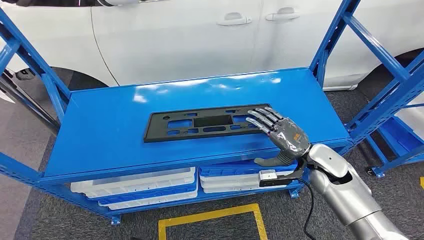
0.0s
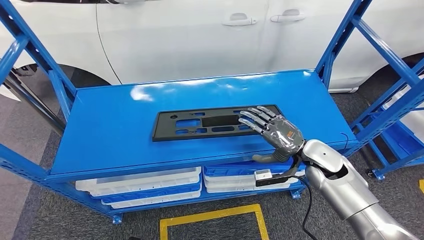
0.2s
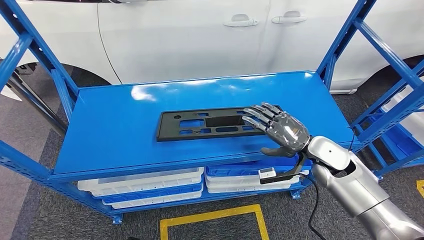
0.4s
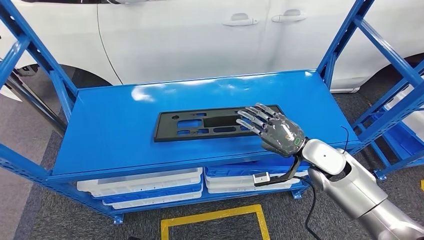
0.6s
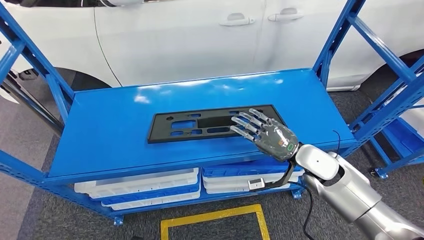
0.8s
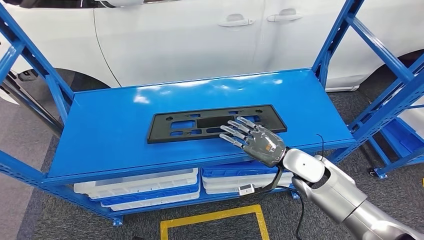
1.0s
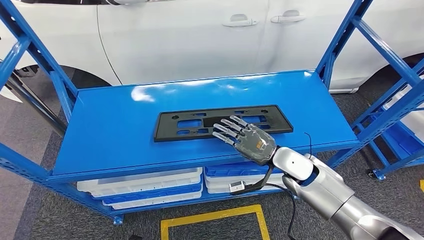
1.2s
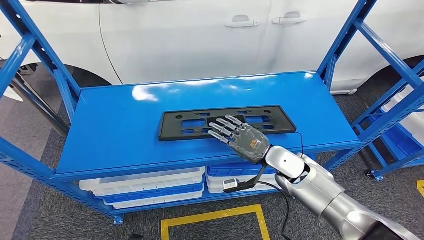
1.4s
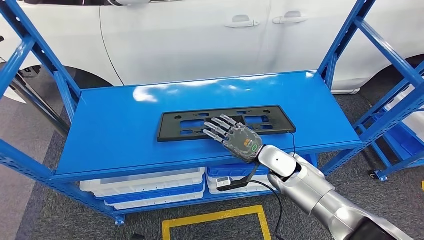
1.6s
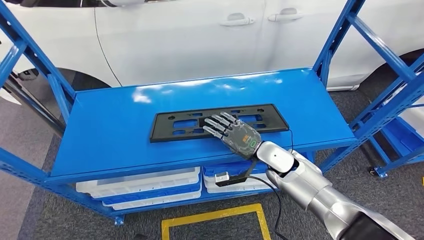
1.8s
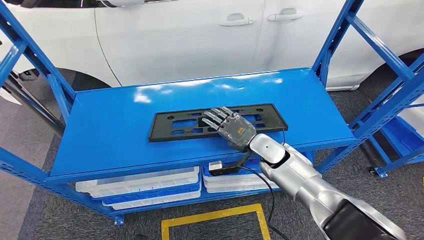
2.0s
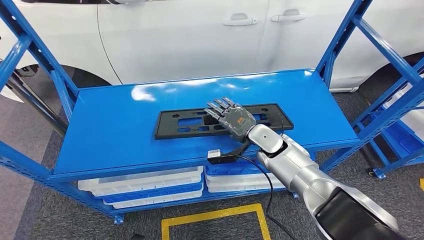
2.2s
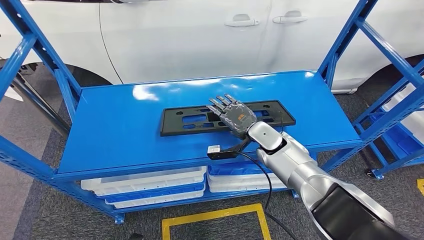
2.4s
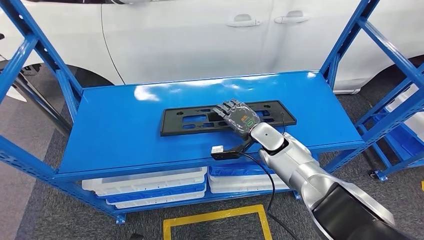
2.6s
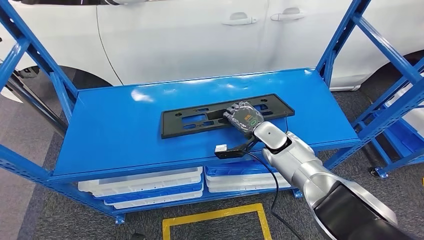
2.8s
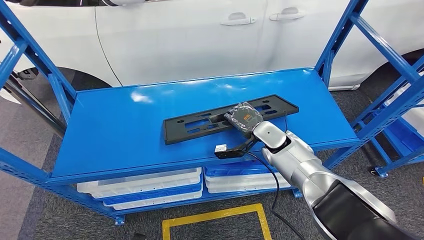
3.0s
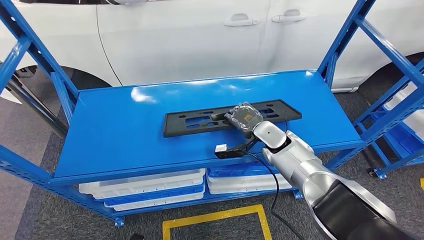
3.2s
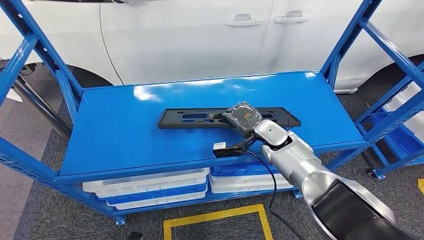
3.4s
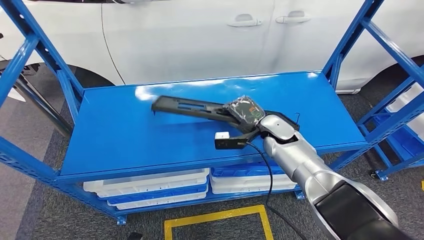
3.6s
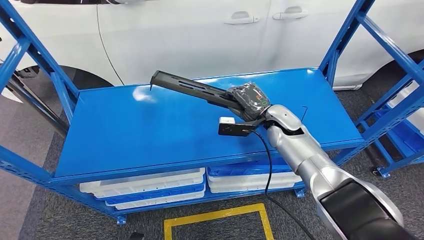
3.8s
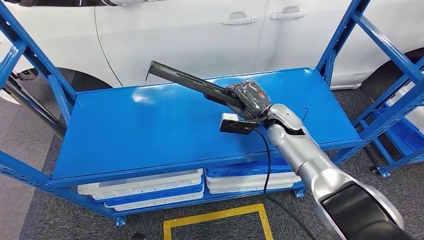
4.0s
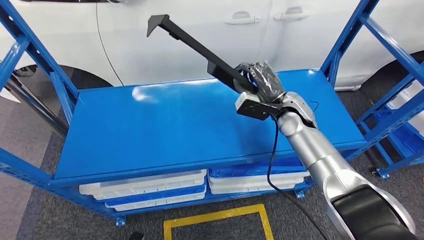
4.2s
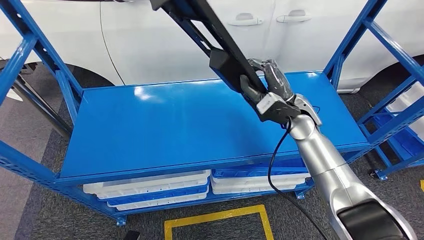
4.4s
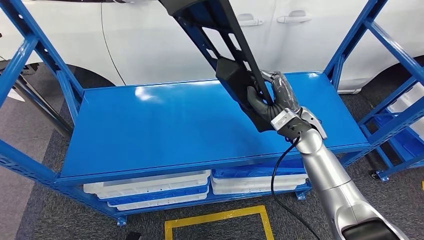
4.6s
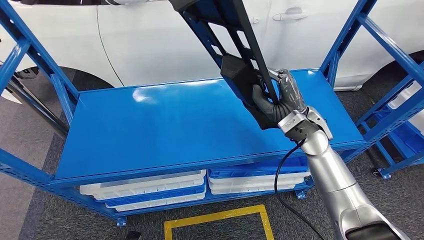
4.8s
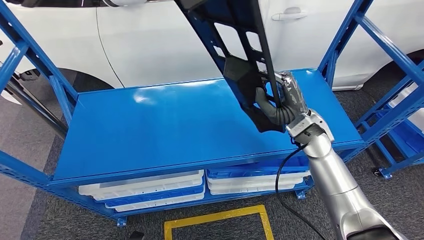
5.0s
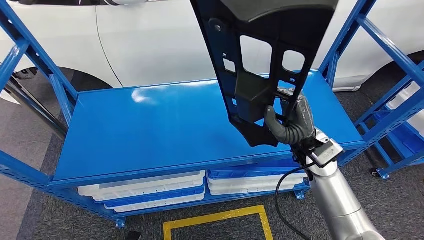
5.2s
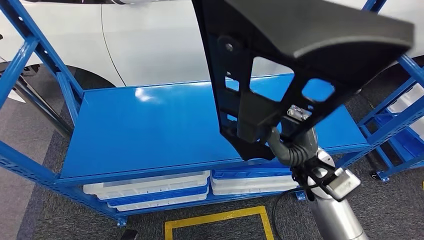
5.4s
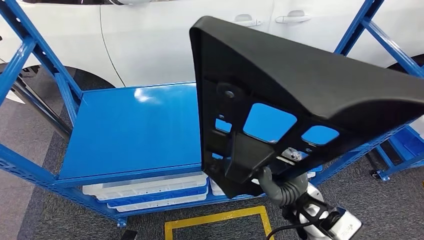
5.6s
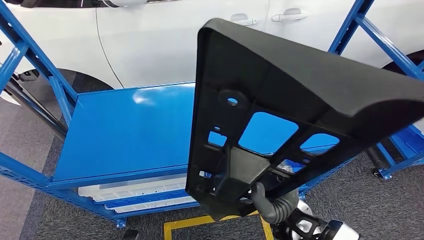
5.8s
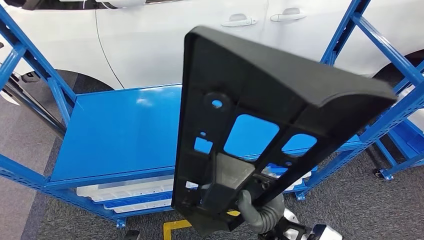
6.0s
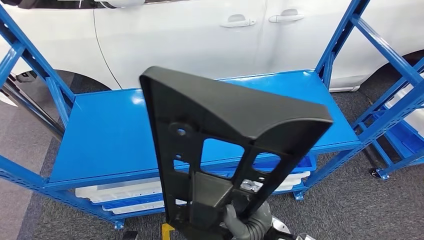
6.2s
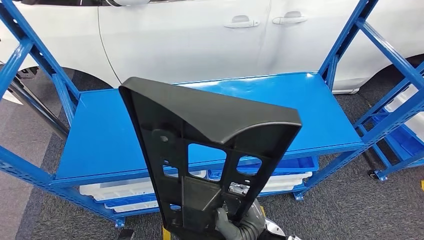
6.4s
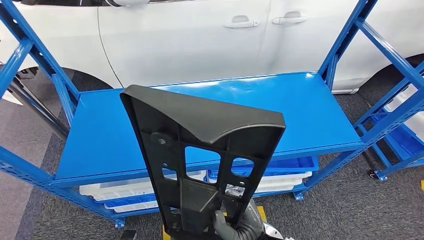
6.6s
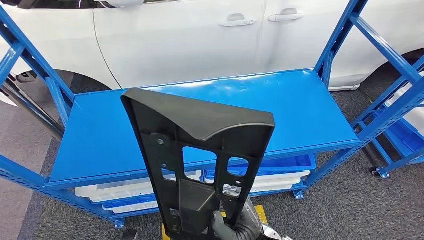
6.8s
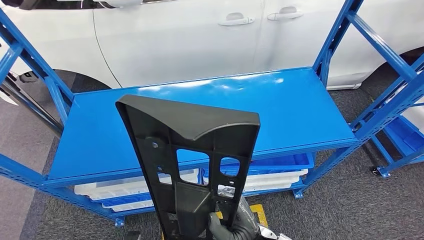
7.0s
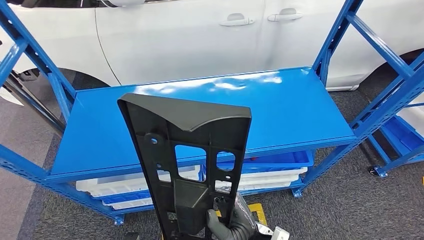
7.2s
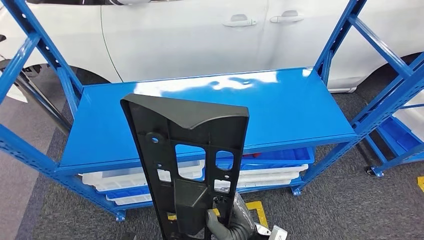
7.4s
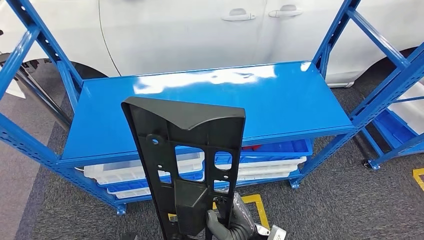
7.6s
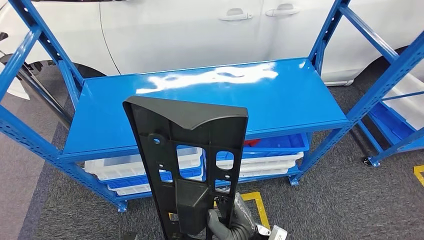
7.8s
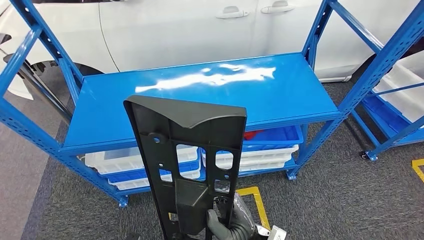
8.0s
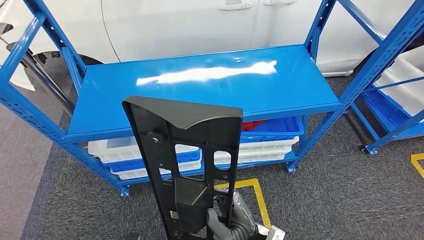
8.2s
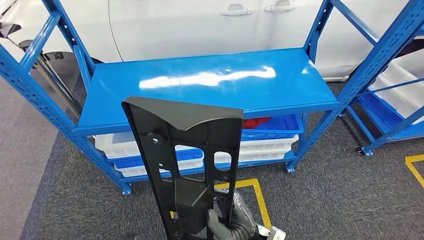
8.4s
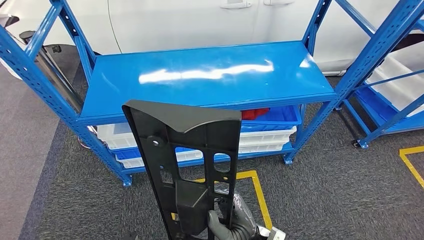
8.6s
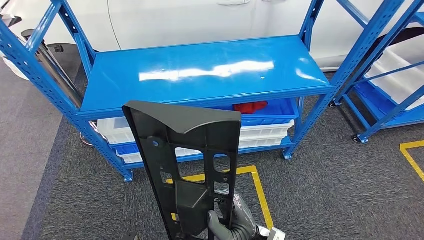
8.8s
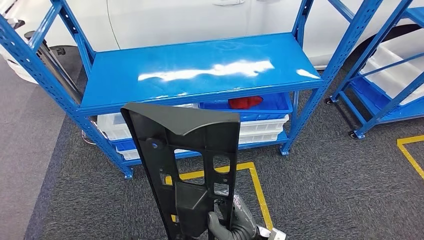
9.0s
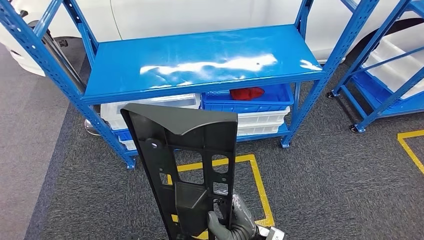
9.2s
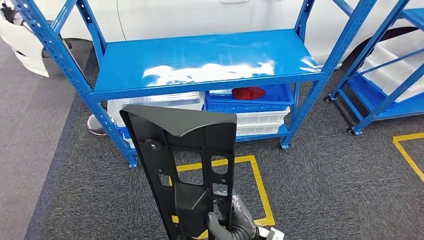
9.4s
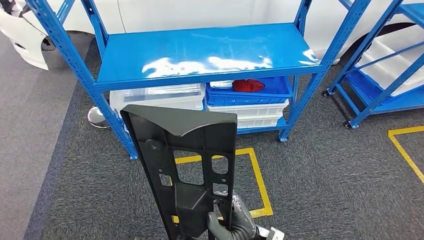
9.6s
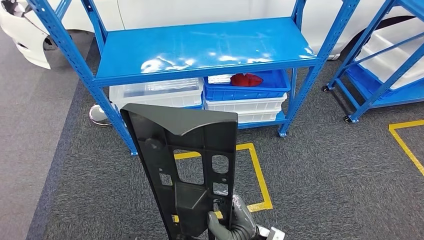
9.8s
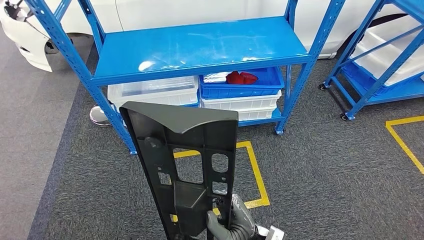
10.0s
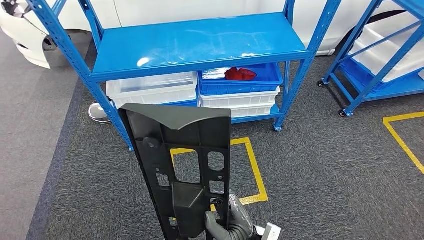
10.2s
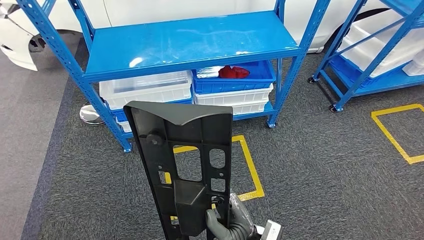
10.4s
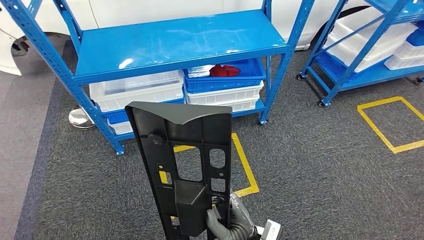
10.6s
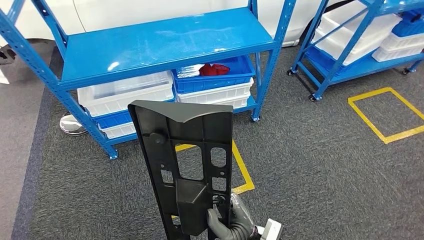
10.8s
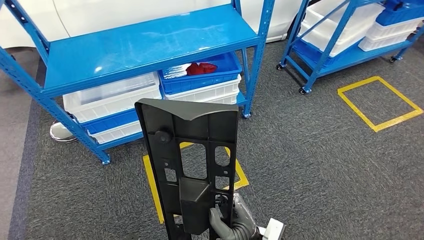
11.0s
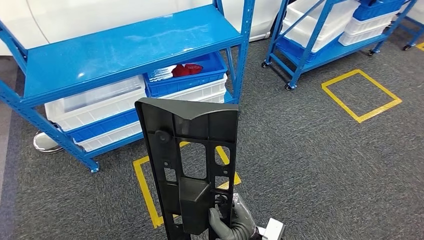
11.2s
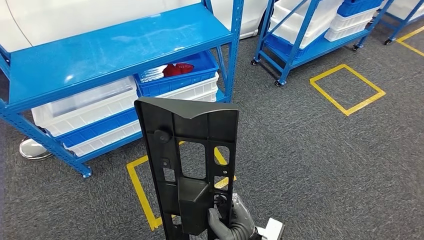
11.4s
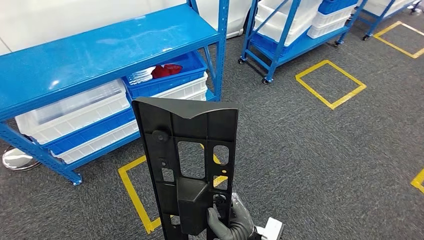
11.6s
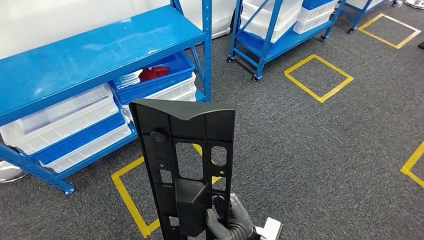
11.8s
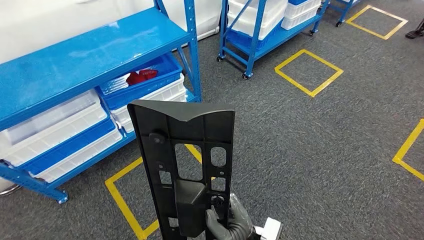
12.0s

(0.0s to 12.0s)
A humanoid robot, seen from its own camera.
Step, 0.0s - 4.2s: Pick up the large parts from the shelf.

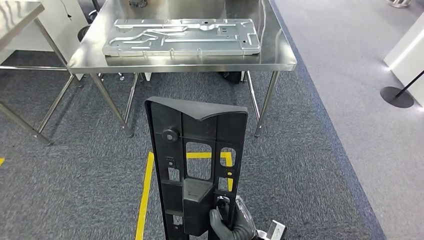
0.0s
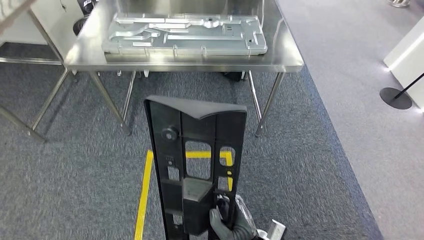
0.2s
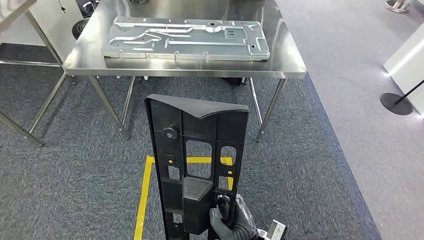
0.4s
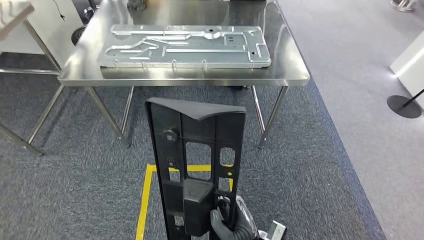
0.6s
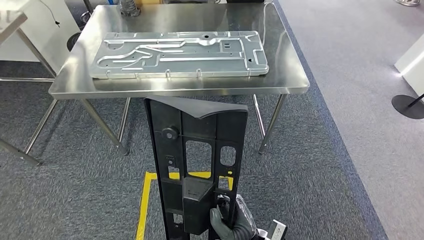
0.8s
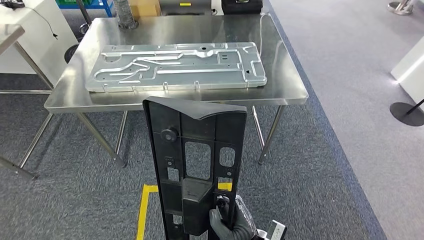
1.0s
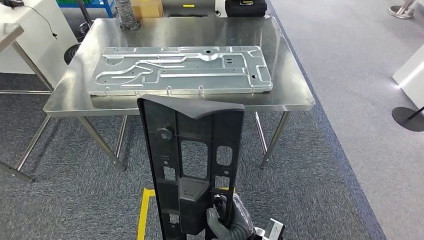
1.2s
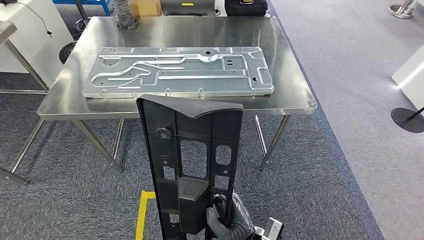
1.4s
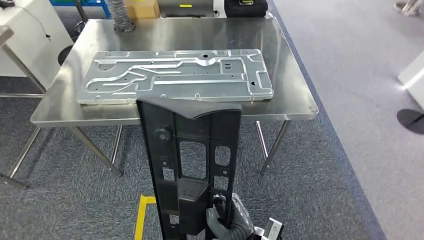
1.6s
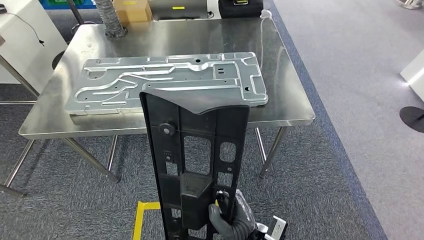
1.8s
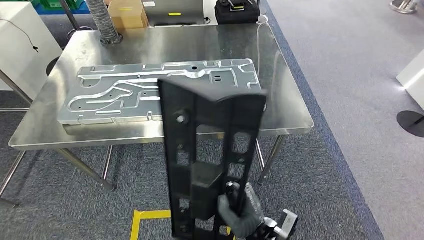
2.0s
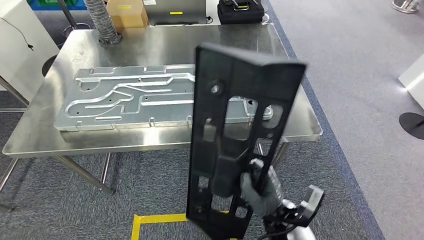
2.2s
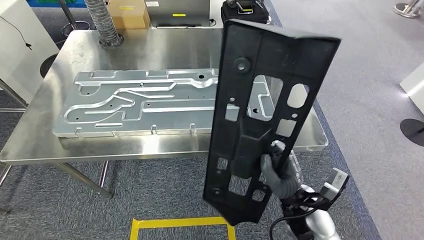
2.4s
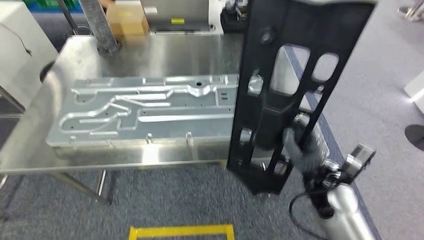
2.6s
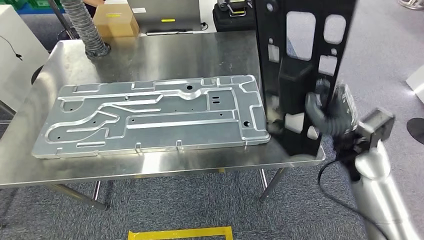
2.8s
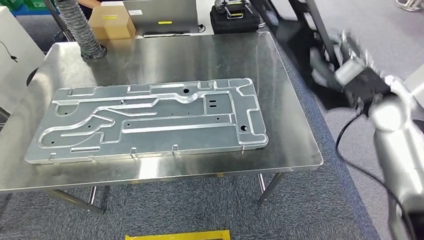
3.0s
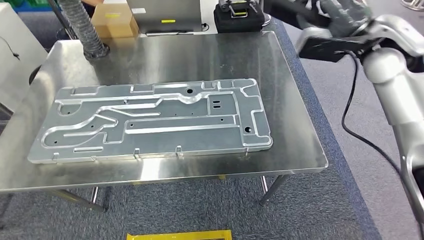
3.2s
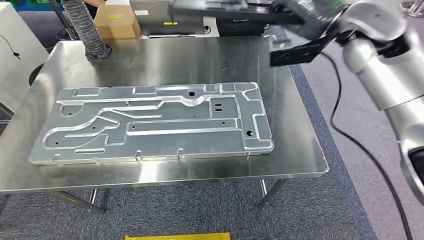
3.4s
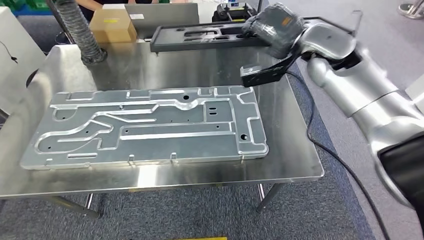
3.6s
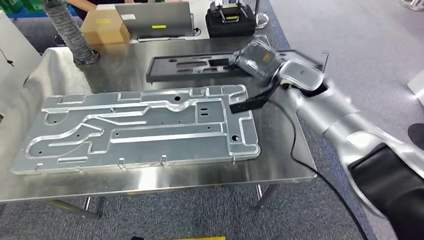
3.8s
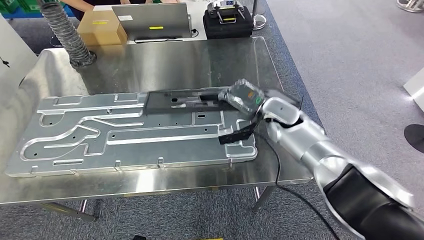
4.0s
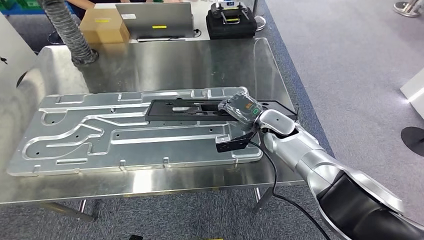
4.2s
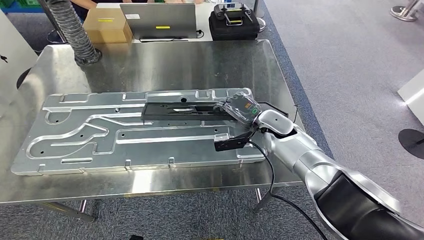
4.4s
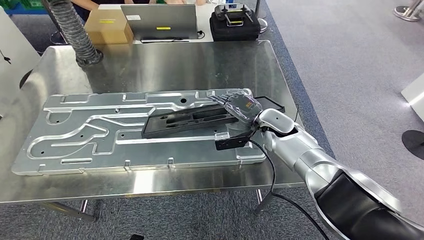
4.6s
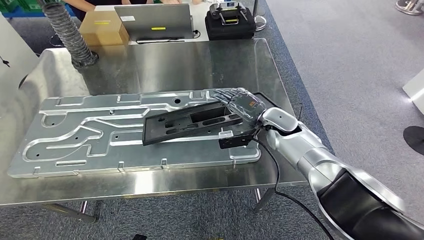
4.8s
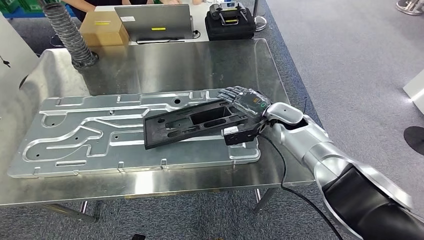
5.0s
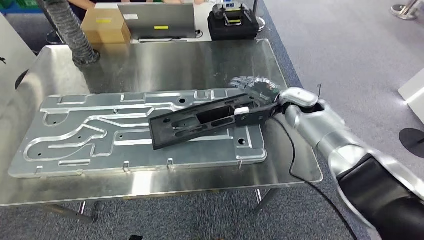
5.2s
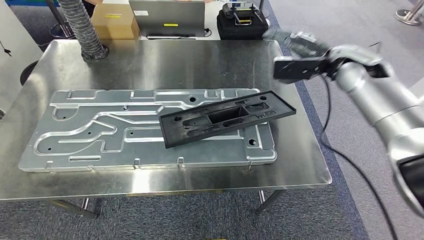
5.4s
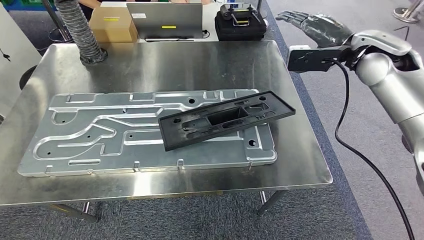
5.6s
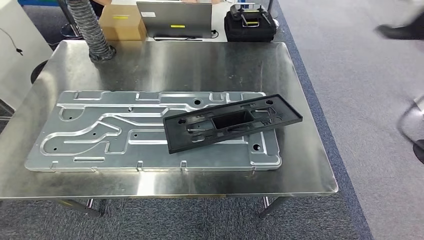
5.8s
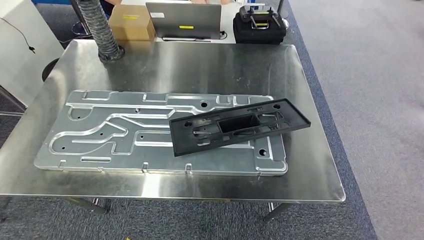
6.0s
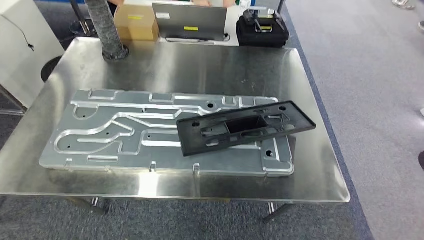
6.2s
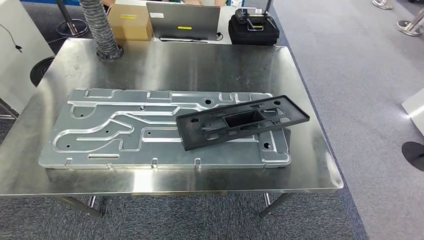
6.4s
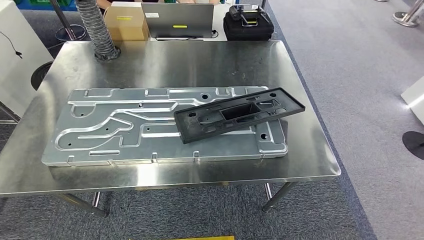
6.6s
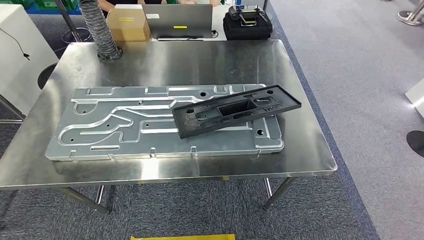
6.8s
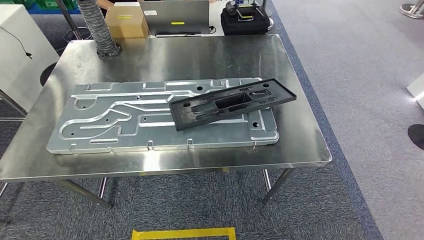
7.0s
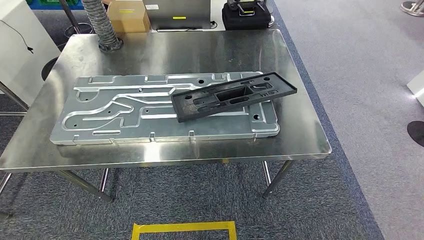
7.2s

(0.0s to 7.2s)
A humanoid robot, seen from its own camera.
Step, 0.0s - 3.2s: Move the large parts to the workbench.
Step, 3.4s - 6.8s: Insert the large parts into the corresponding slots on the workbench.
